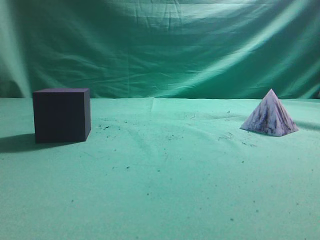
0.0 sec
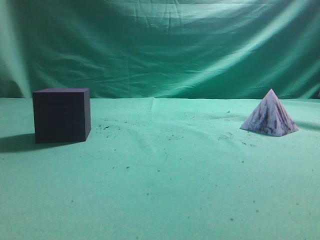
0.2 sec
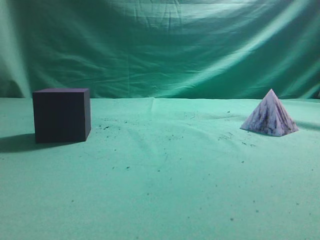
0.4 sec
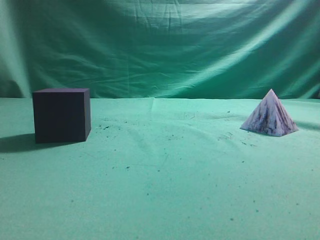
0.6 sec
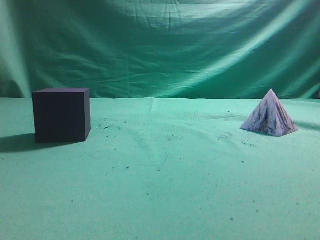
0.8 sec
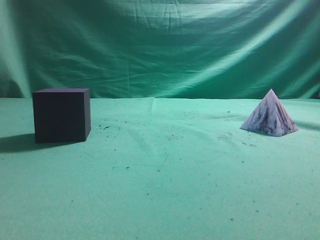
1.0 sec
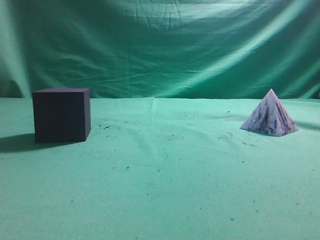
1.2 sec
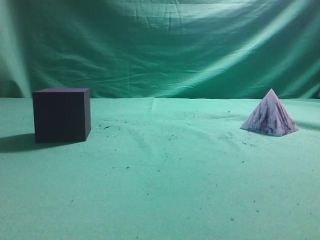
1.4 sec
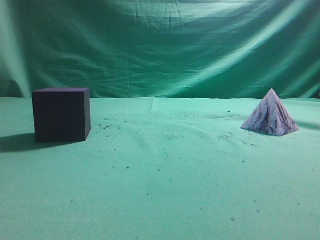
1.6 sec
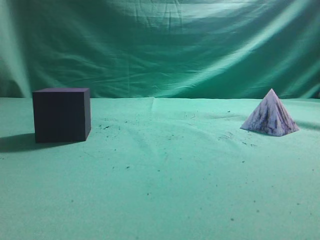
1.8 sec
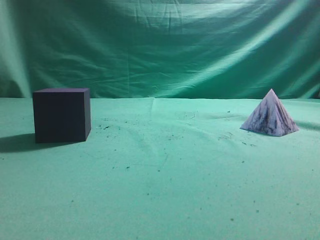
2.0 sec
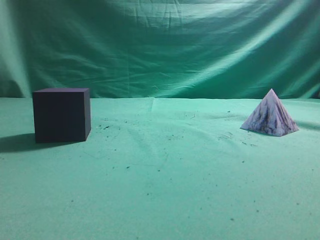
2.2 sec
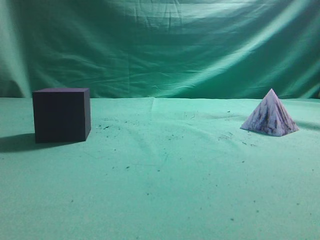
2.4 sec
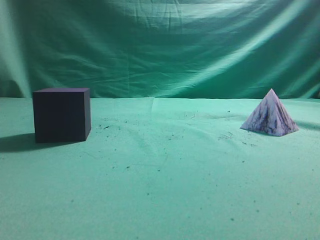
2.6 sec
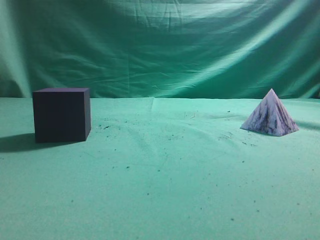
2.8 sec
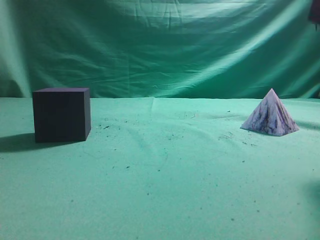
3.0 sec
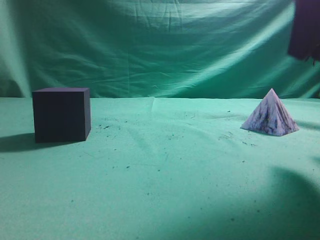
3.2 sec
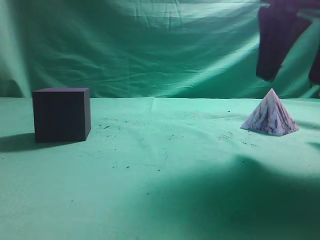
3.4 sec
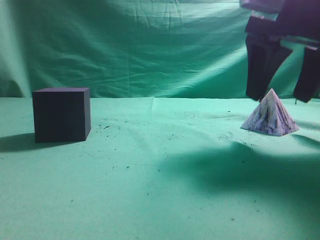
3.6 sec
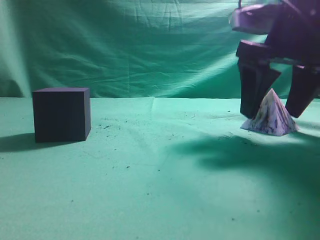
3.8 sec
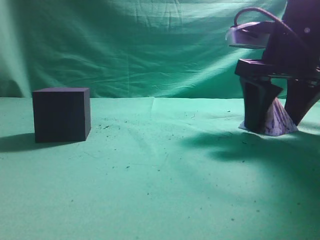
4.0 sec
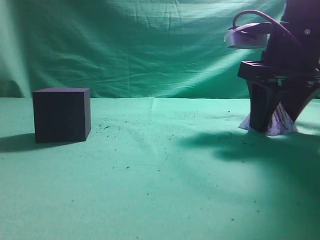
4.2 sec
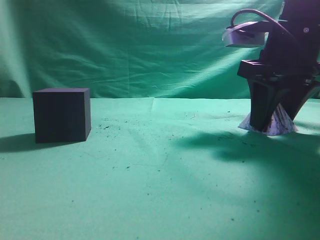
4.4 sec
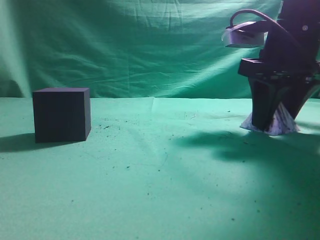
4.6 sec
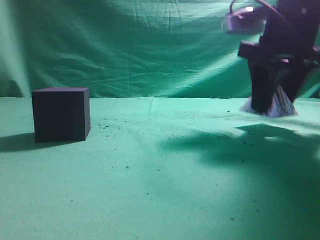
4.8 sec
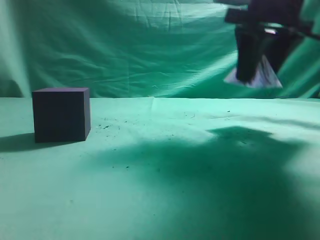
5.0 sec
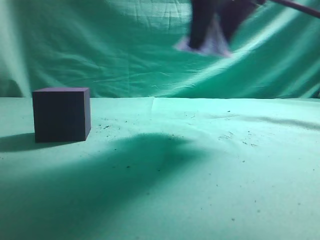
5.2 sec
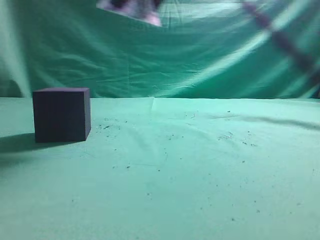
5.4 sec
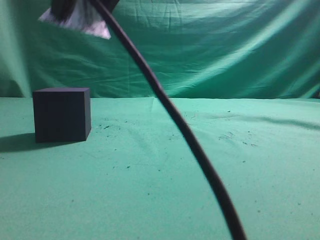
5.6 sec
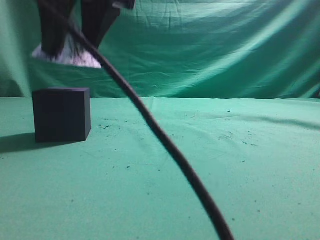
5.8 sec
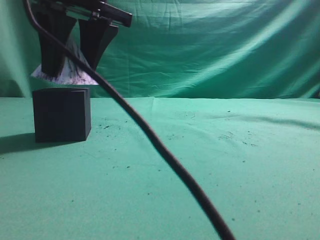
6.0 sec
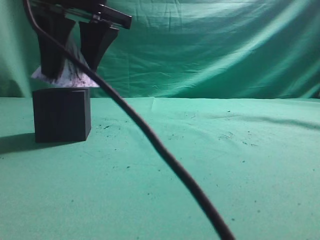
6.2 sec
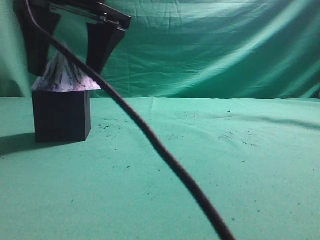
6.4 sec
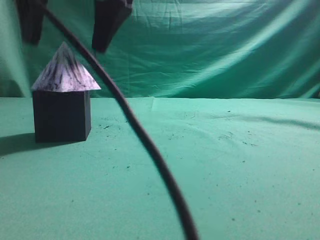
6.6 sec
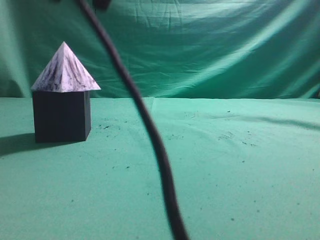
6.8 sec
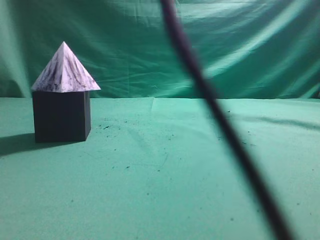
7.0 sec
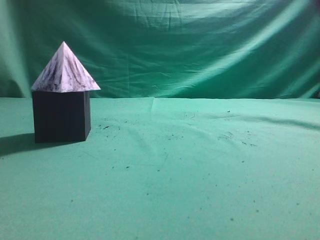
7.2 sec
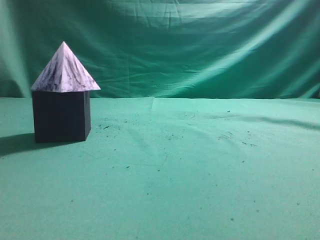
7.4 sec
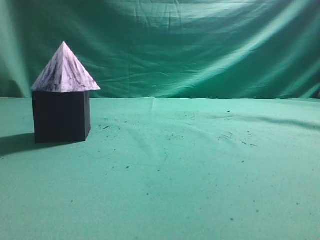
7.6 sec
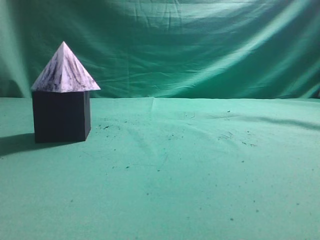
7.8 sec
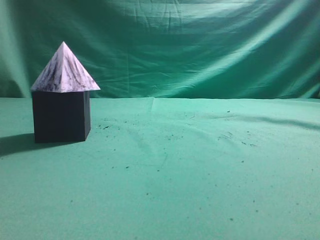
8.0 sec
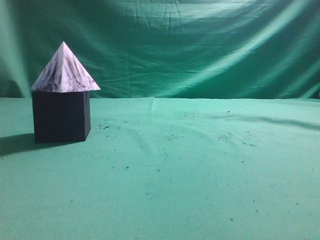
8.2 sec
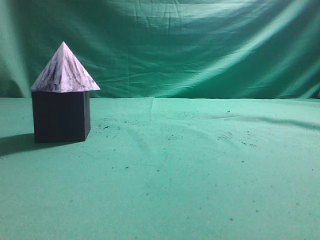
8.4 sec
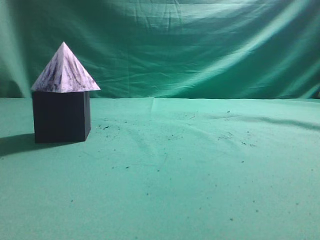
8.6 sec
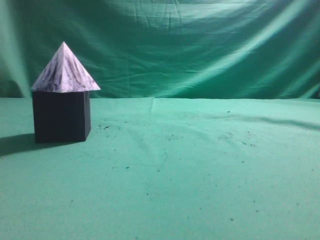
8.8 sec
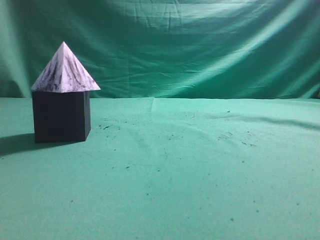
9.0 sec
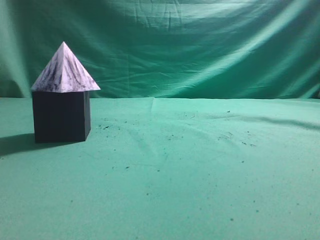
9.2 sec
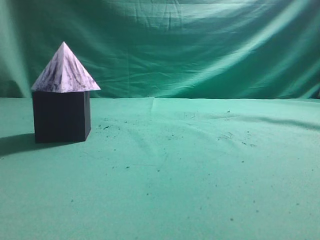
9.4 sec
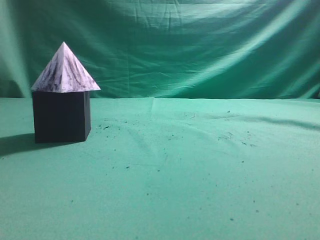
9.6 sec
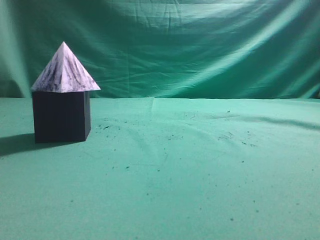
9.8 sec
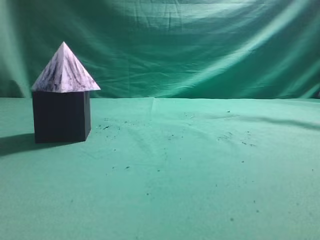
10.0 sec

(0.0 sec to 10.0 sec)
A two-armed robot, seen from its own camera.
Task of the whole recording: pick up the square pyramid from the table and place it on the cube block.
Step, 0.0 sec - 4.8 sec: Grasp the triangular block.
Step, 5.0 sec - 6.6 sec: Place the block onto the cube-shaped block.
2.8 sec - 4.2 sec: The right gripper goes some 20 cm downward and forward, and opens its fingers.
4.2 sec - 5.8 sec: The right gripper heads to the left and upward, covering some 25 cm.
5.8 sec - 7.2 sec: The right gripper shifts some 20 cm upward and to the right, and closes.
